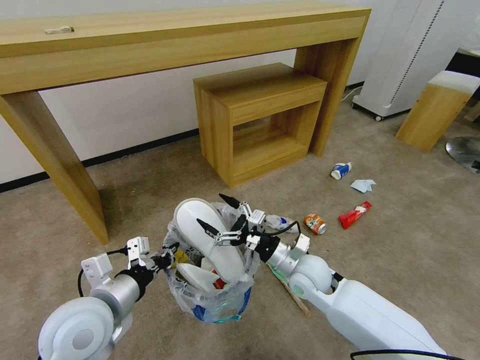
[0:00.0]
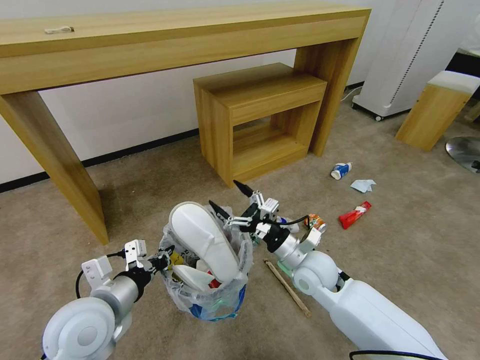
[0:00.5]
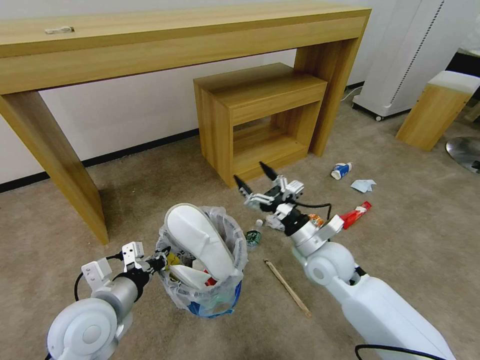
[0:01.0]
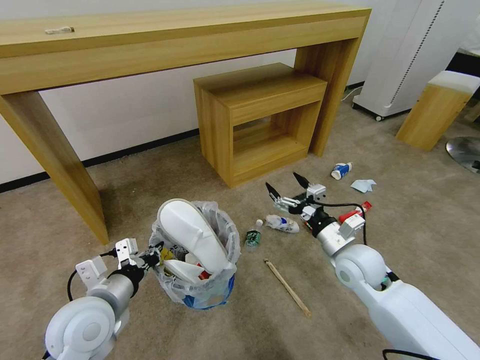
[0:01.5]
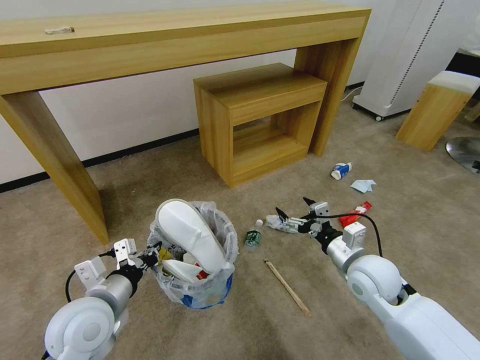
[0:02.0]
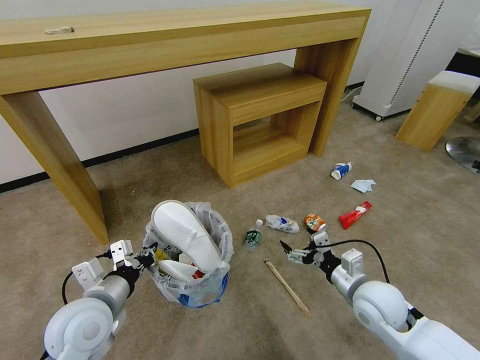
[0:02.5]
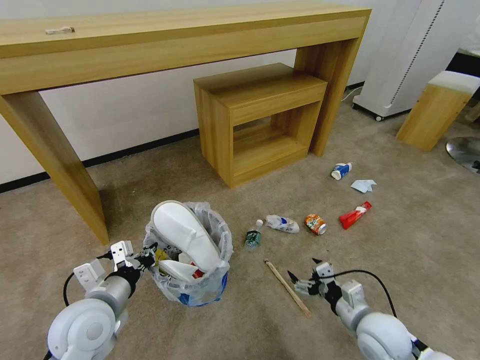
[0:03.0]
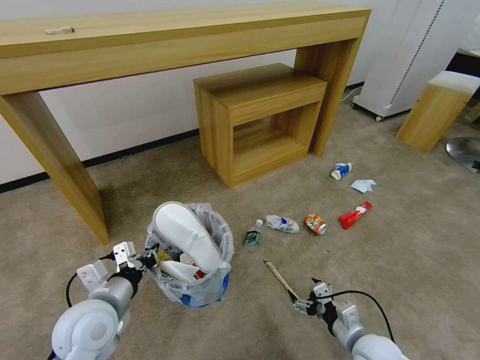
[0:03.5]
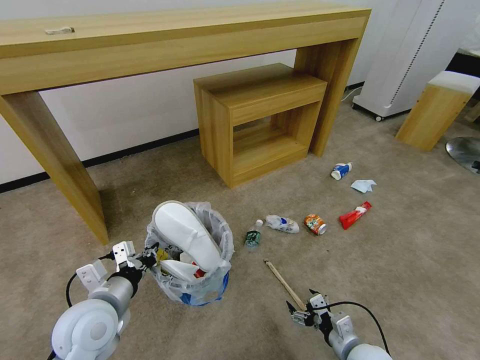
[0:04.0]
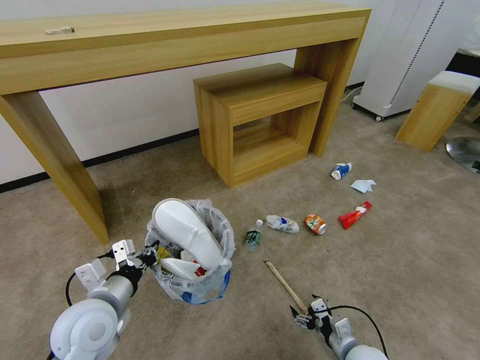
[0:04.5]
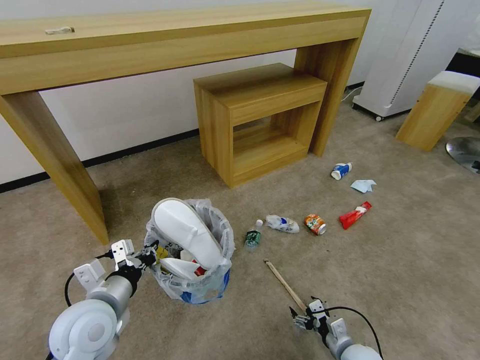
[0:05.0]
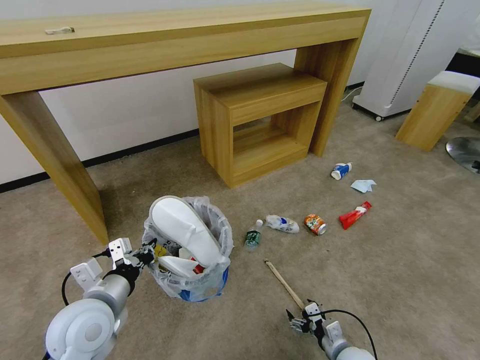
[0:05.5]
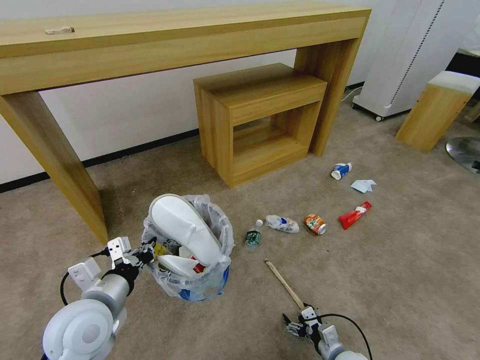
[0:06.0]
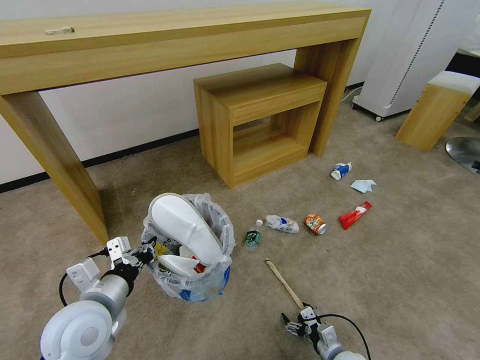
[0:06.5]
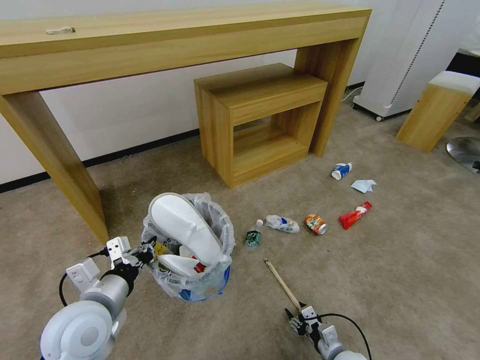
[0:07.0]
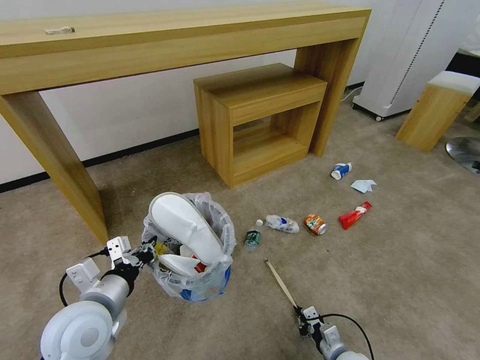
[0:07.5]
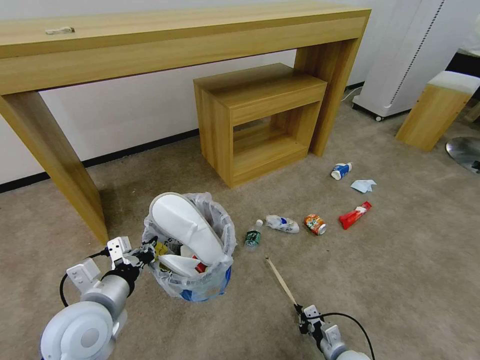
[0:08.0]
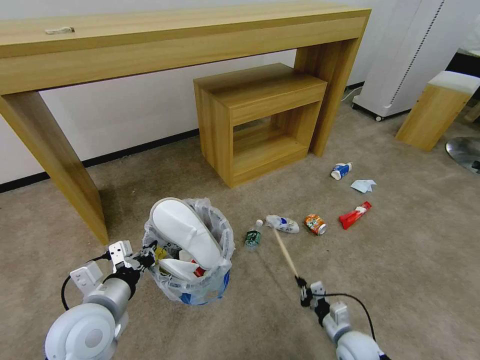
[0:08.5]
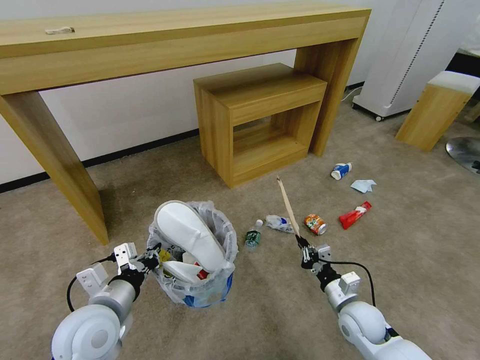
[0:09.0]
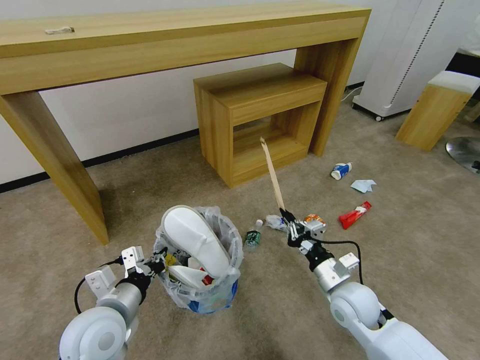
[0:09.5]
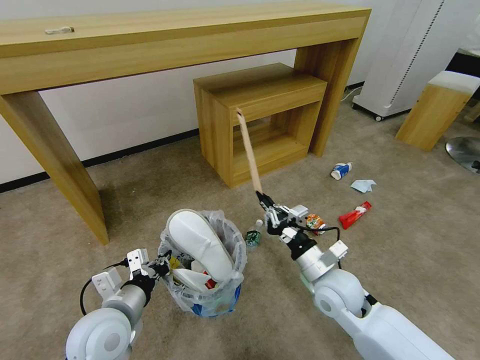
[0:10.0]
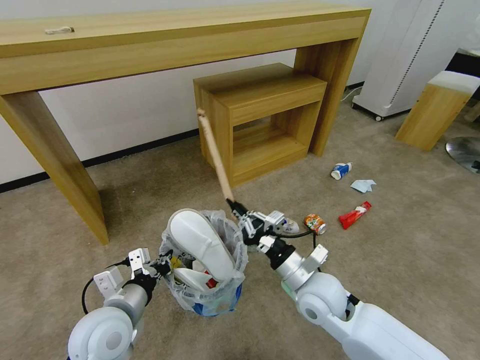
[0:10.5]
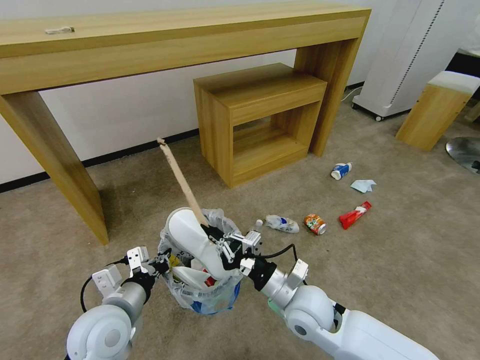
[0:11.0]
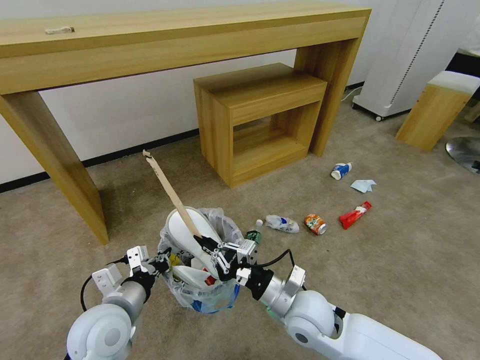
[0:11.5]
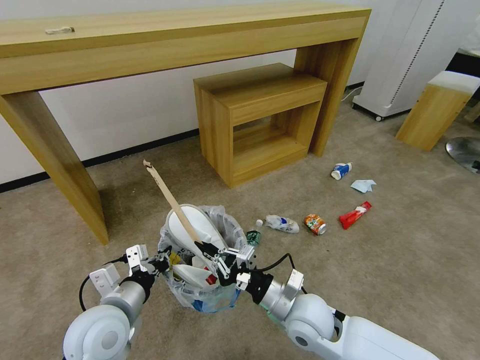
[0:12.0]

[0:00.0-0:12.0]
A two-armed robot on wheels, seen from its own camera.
Task of the whole recording: Pick up the trash bin and place the garbage on the floor into it.
0:00.0 to 0:02.0: The right gripper travels to the right by roughly 10 cm.
0:02.0 to 0:04.0: The right gripper moves downward and backward, approximately 20 cm.
0:04.0 to 0:06.0: The right gripper goes about 10 cm downward.
0:06.0 to 0:08.0: The right gripper closes up.
0:08.0 to 0:10.0: The right gripper travels upward and forward by some 25 cm.
0:10.0 to 0:12.0: The right gripper travels to the left by roughly 5 cm.

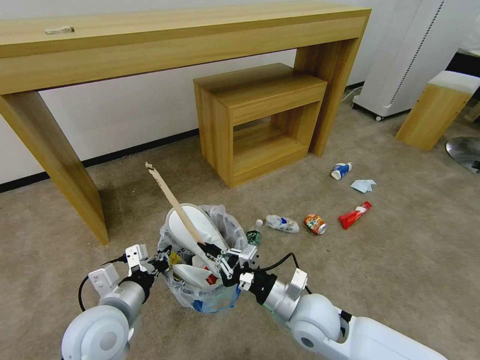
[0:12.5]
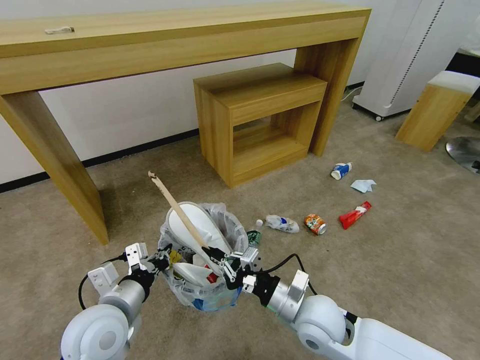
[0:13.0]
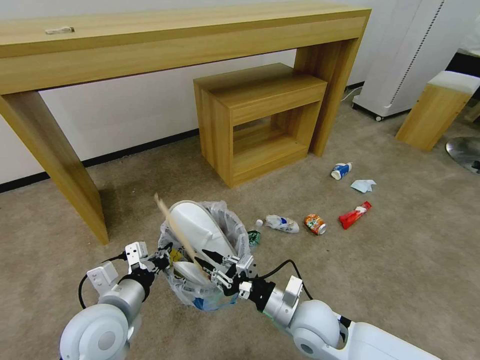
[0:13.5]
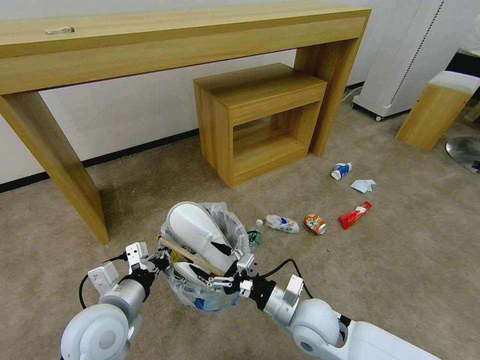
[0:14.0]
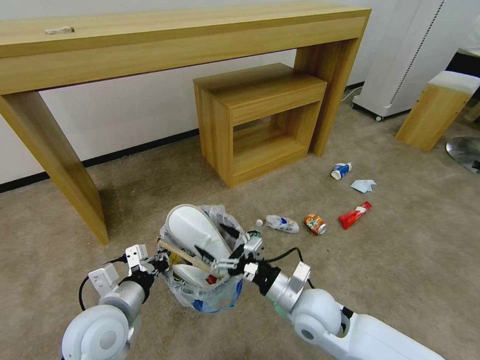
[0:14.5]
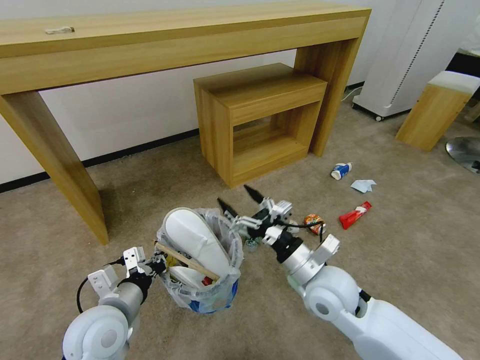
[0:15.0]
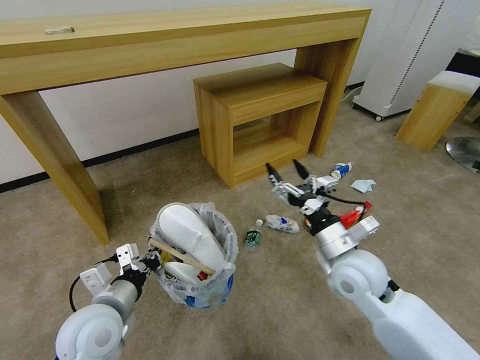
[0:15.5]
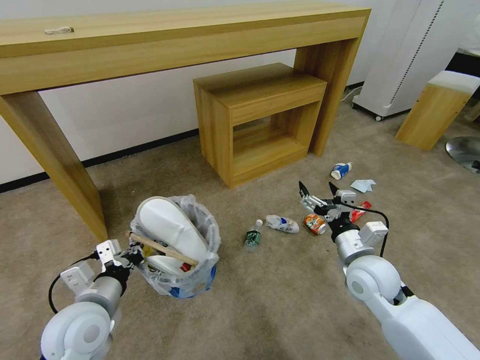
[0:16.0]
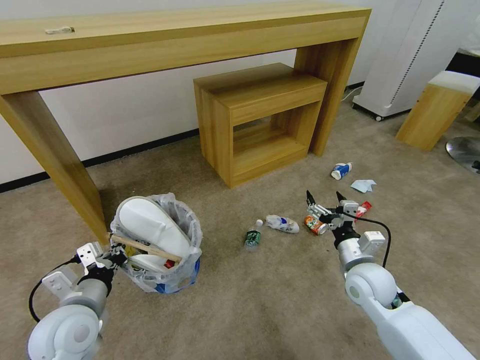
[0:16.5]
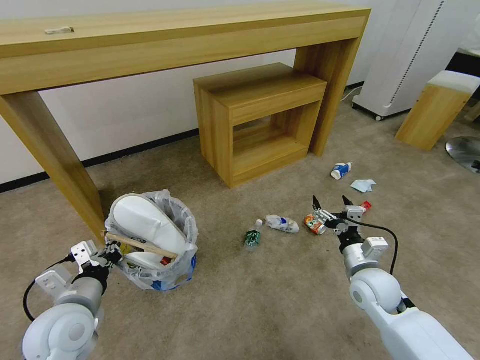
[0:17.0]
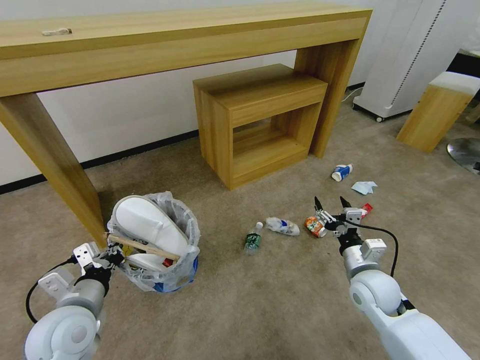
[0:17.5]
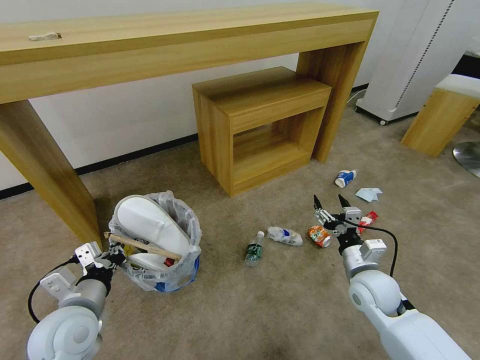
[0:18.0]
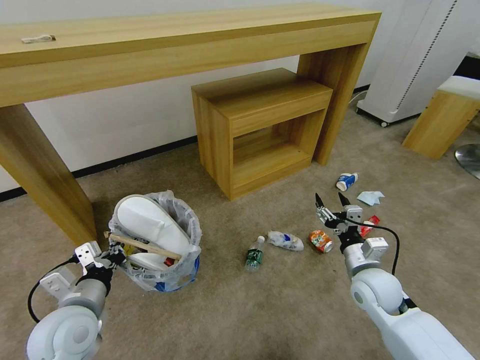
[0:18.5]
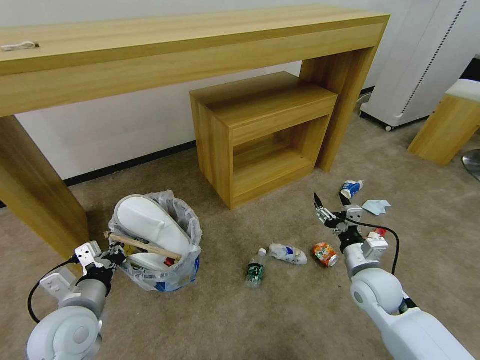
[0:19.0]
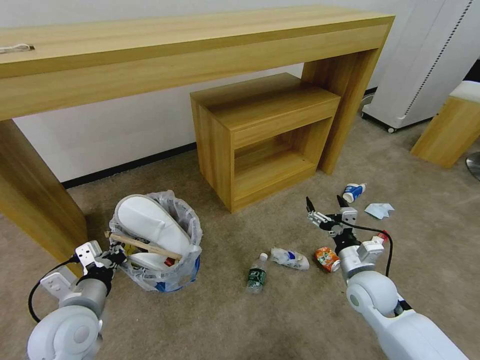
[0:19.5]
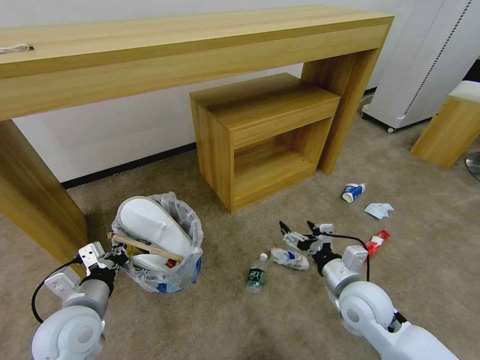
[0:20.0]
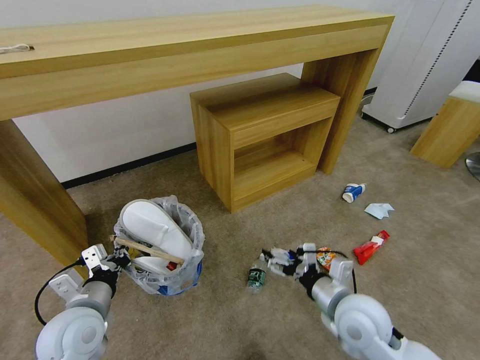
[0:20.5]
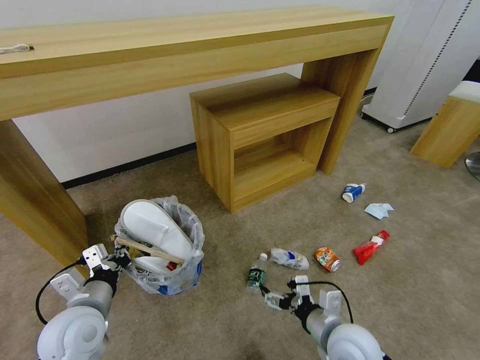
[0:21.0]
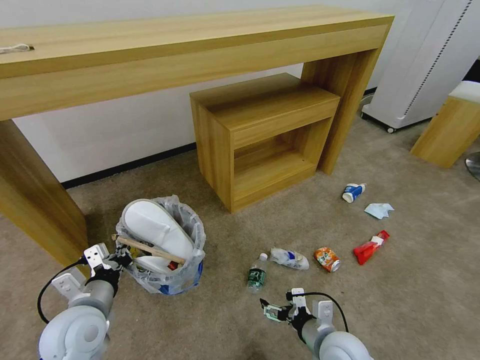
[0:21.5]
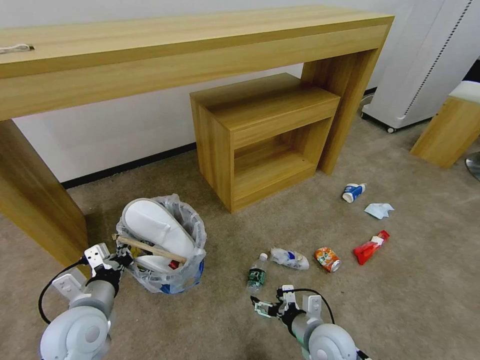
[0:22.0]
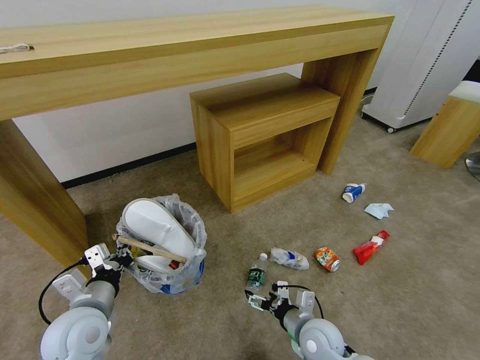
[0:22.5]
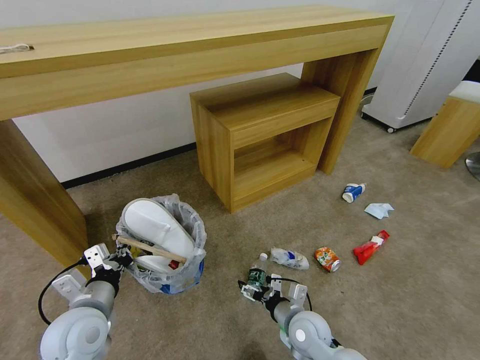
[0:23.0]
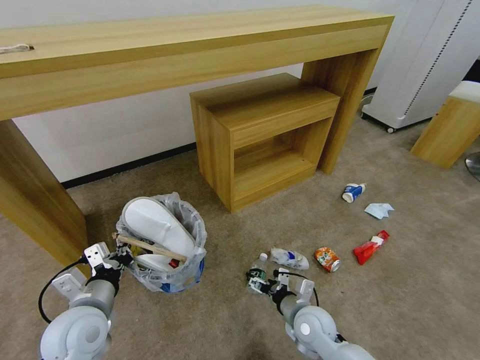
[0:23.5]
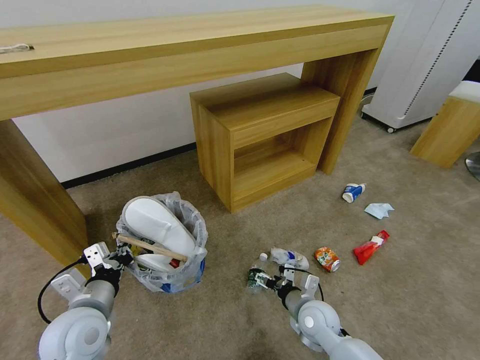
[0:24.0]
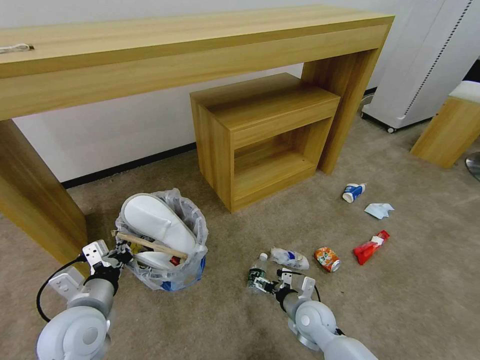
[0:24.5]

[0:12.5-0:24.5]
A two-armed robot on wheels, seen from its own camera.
Task of the whole recording: Pick up the trash bin and place the garbage on the floor into it.
0:12.5 to 0:14.5: The right gripper opens up.
0:14.5 to 0:16.5: The left gripper moves to the left, approximately 5 cm. Meanwhile the right gripper goes approximately 15 cm to the right and forward.
0:18.5 to 0:20.5: The right gripper heads to the left and backward, covering some 10 cm.
0:20.5 to 0:22.5: The right gripper is displaced downward by about 15 cm.
0:22.5 to 0:24.5: The right gripper moves forward, about 5 cm.

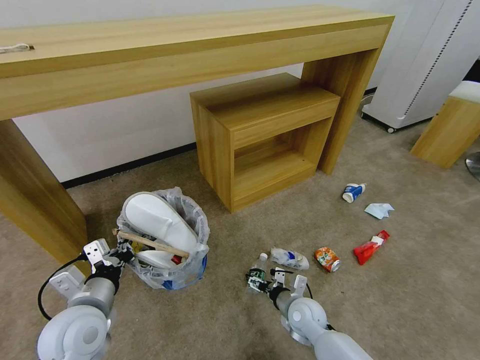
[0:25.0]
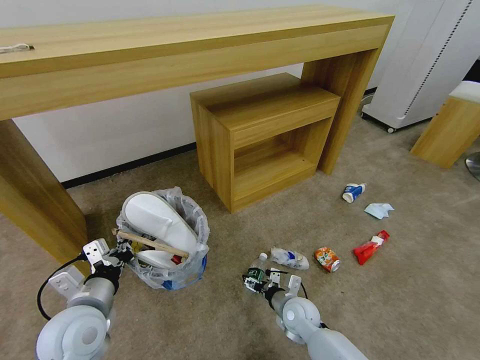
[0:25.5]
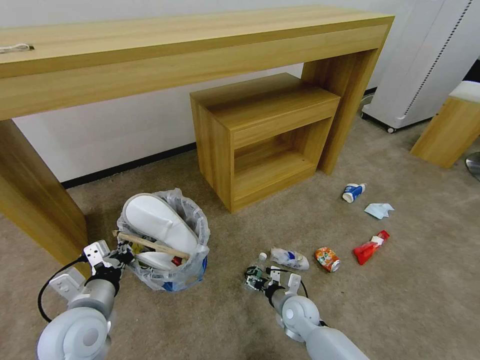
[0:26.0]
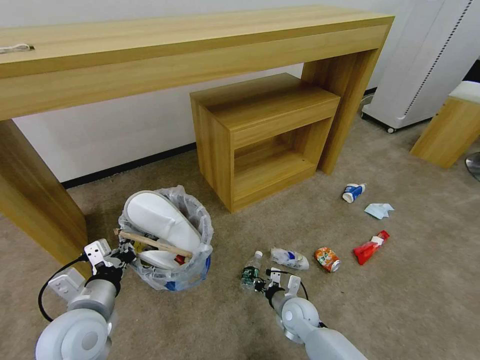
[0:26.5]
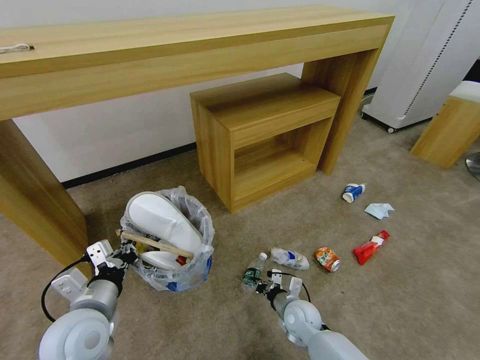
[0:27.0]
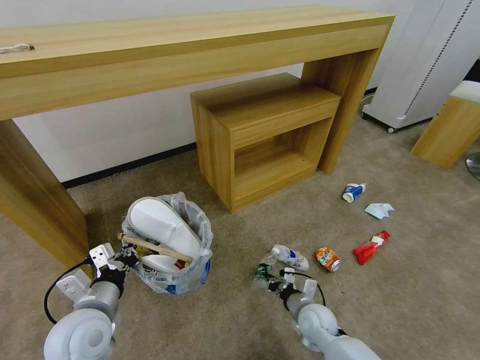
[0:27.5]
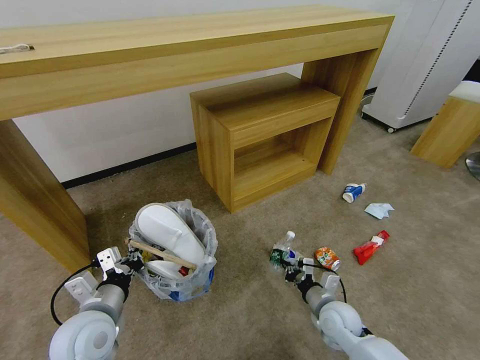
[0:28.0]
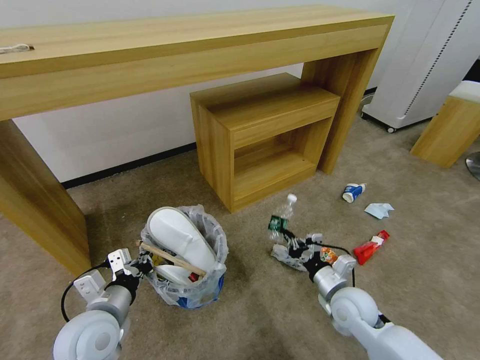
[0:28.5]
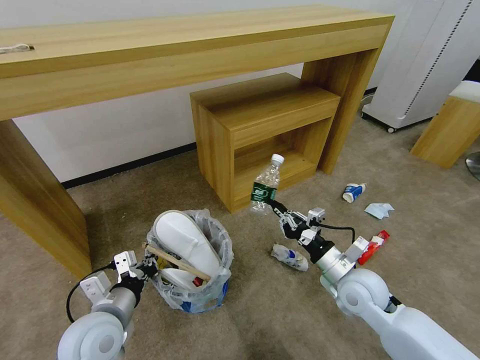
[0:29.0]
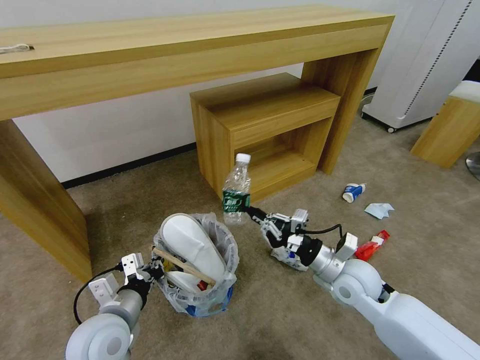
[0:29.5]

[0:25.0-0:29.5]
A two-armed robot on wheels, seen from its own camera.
Task of the whole recording: Pick up the trash bin and place the garbage on the floor into it.
0:25.0 to 0:27.0: The right gripper closes its fingers.
0:27.0 to 0:29.5: The right gripper travels upward and to the right by about 20 cm.
